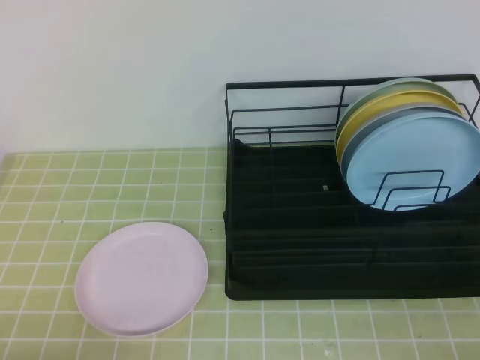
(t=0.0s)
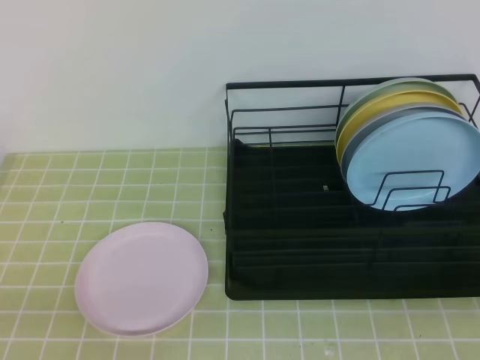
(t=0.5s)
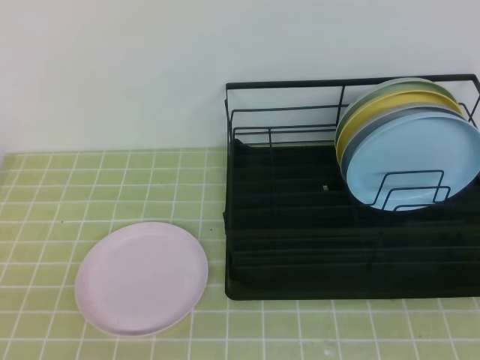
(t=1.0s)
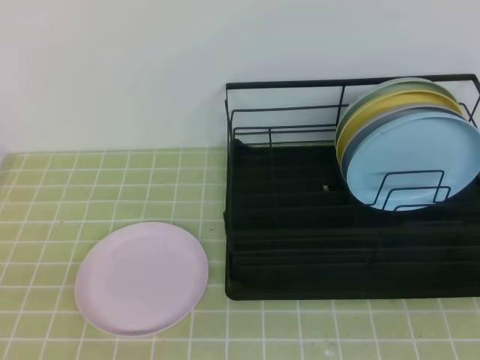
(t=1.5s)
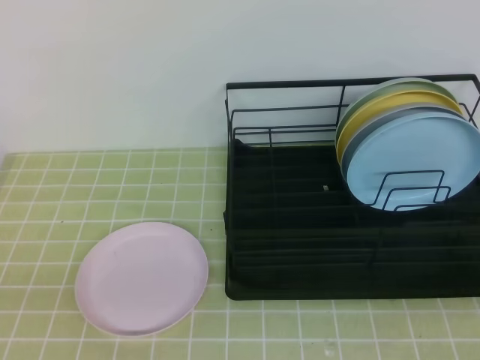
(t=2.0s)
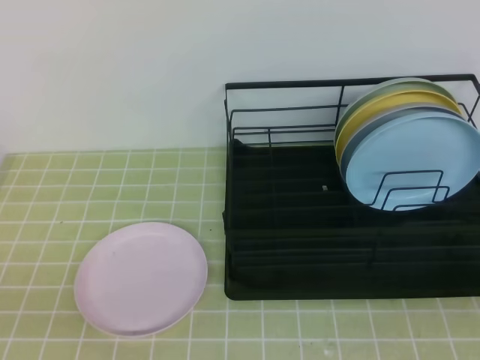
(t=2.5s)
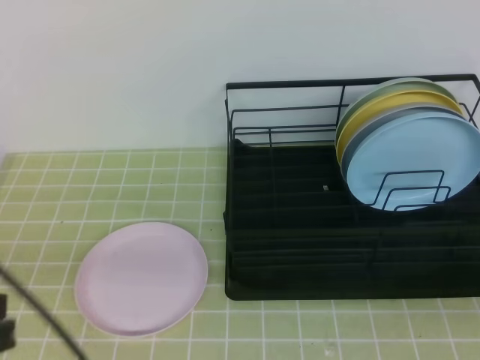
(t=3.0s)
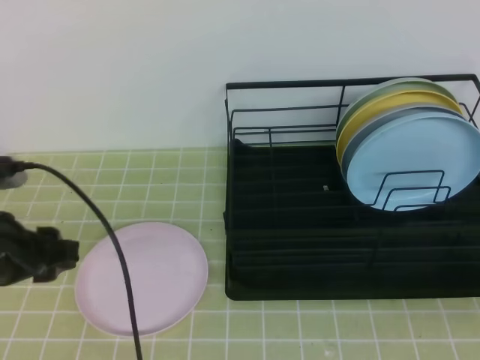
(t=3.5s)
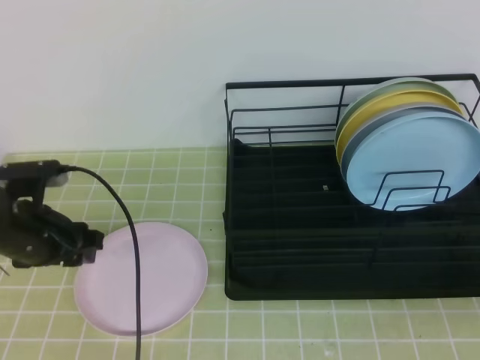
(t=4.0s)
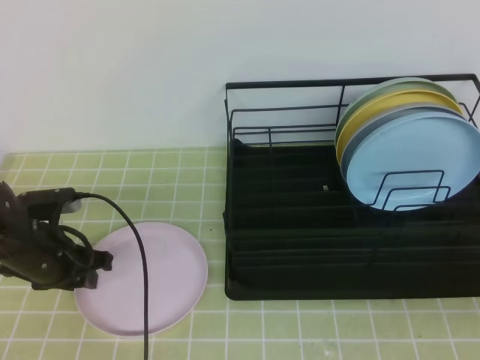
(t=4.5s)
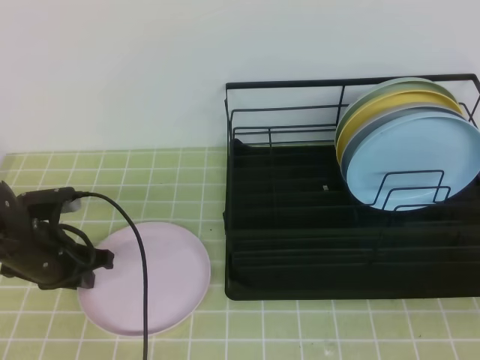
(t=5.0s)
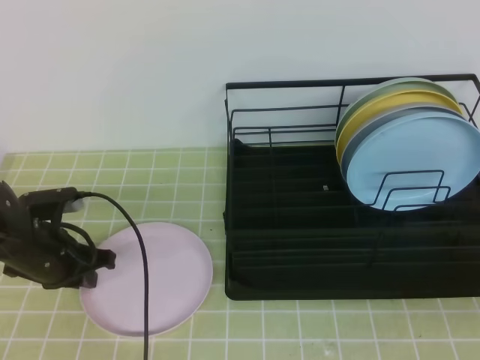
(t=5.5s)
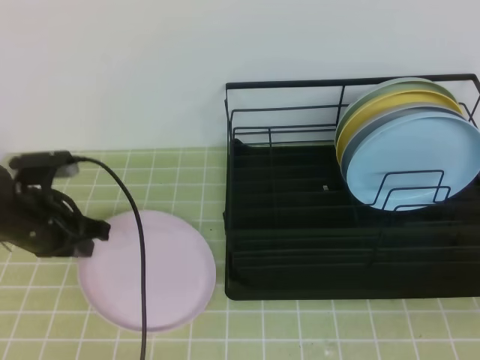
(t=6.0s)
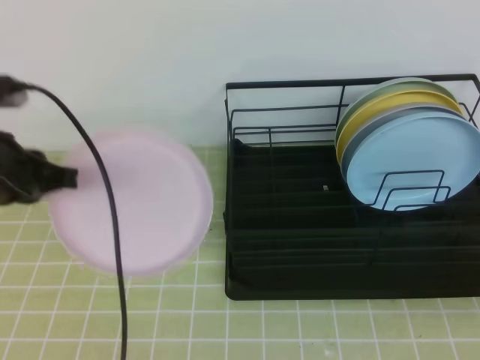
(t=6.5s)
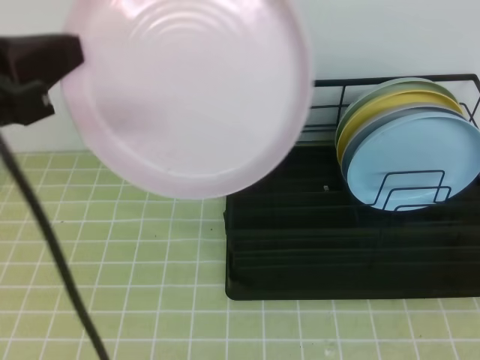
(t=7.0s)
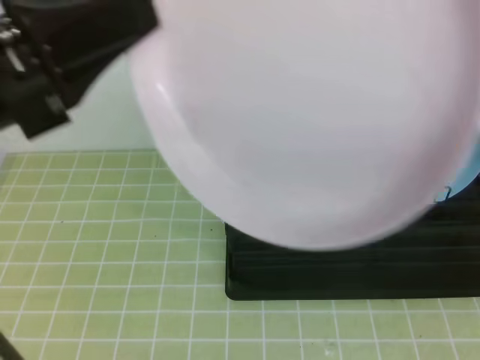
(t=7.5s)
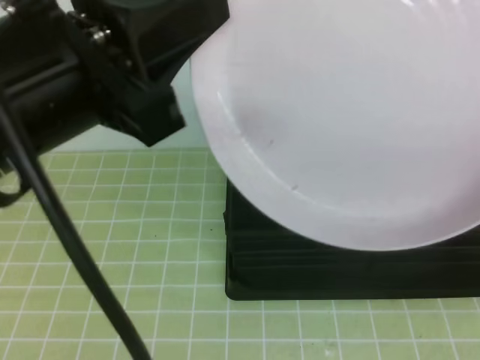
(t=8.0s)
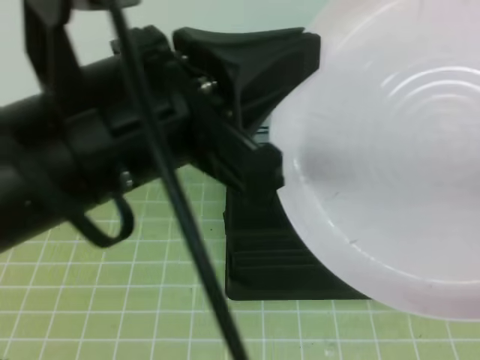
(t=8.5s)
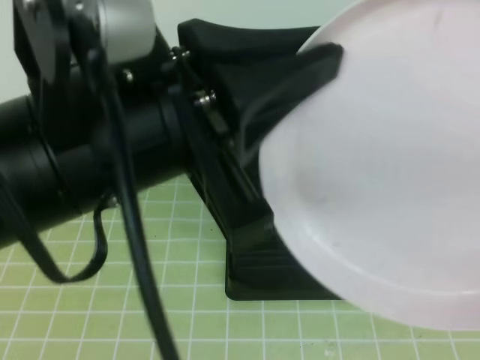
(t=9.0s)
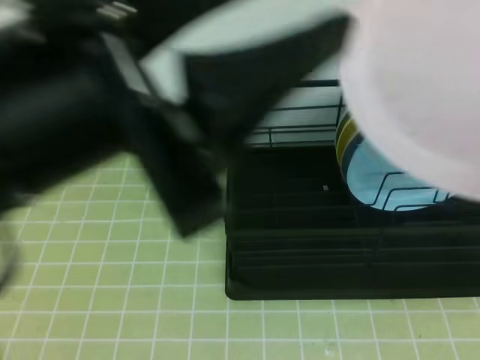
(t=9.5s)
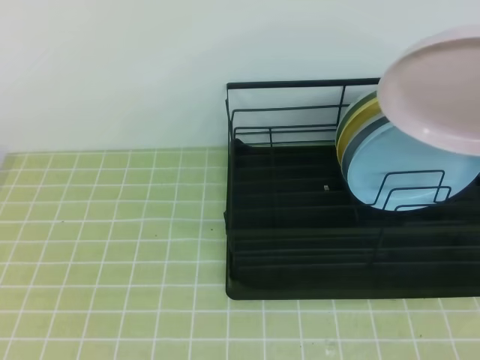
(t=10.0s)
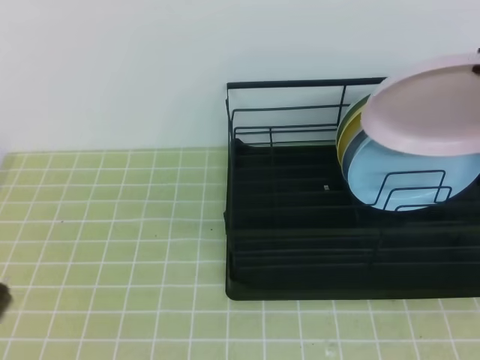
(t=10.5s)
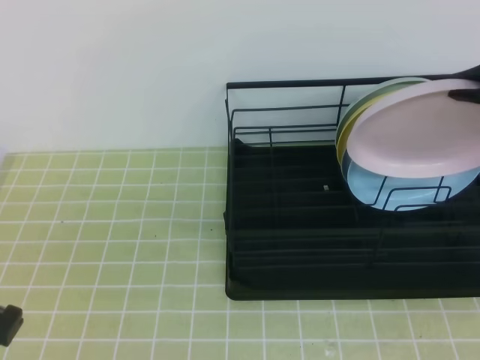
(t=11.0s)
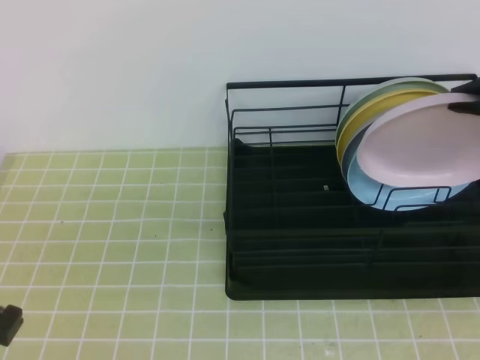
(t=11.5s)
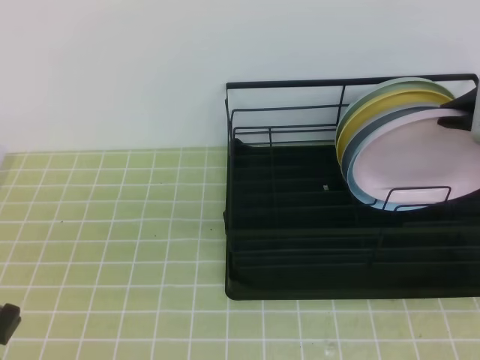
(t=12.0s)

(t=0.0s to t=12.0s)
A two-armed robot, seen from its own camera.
Step, t=0.0s - t=4.5s: Left grab the pink plate.
Step, t=5.0s - t=7.5s: Right receive the plate.
Step, t=8.0s - t=10.0s: Right place it at the front of the shelf.
t=2.0s - t=4.0s: The left gripper is displaced forward by approximately 30 cm, and opens up.
t=4.0s - t=6.0s: The left gripper closes up.
t=6.0s - t=8.0s: The left gripper moves upward, backward and to the right, some 30 cm. Meanwhile the right gripper heads upward and to the left, covering approximately 15 cm, and opens its fingers.
t=8.0s - t=10.0s: The right gripper moves forward, roughly 15 cm, and closes up. Meanwhile the left gripper heads to the left and backward, covering about 10 cm, and opens, then closes once more.
t=10.0s - t=12.0s: The right gripper goes about 15 cm forward and downward.

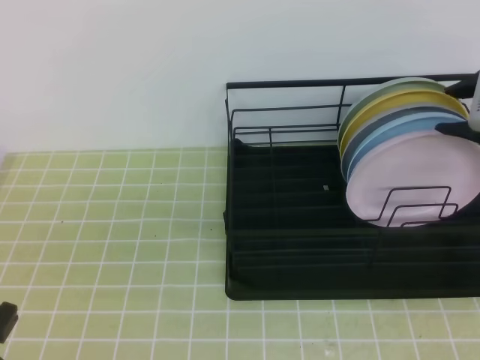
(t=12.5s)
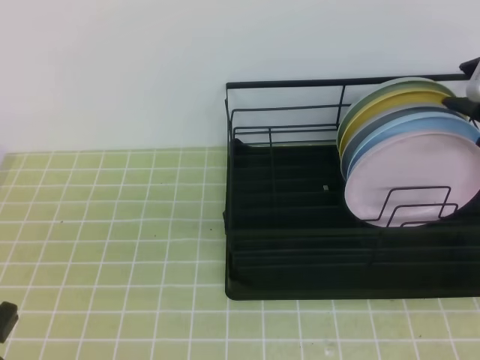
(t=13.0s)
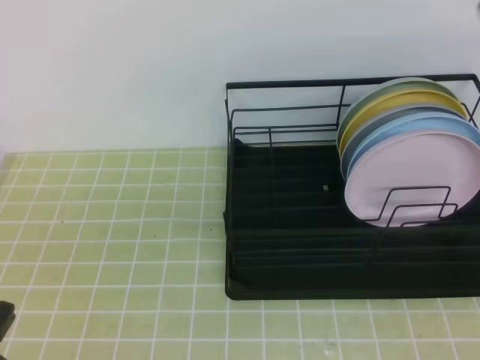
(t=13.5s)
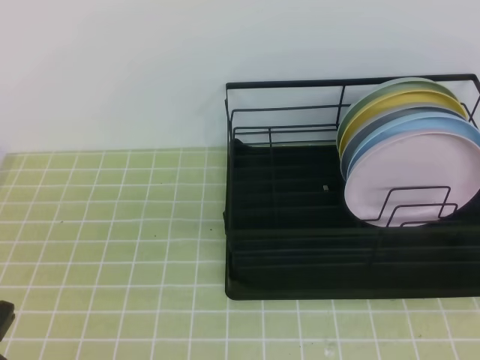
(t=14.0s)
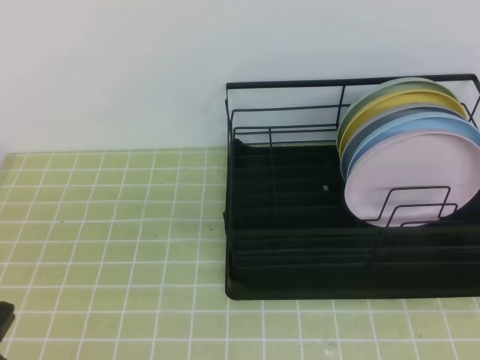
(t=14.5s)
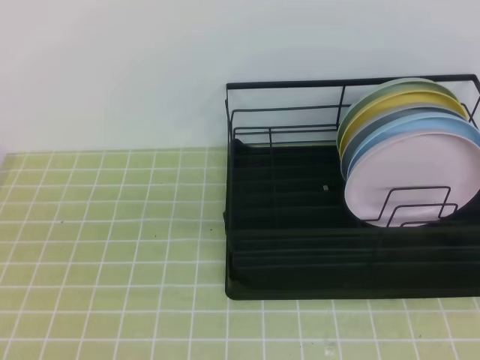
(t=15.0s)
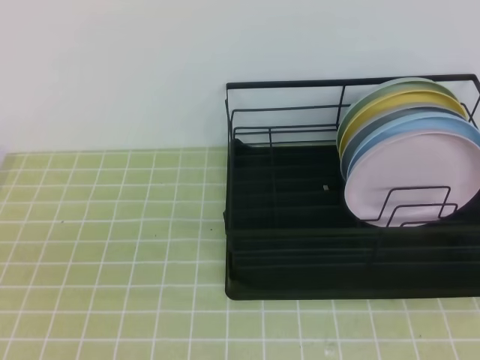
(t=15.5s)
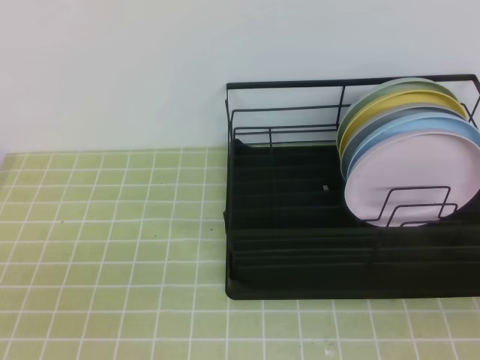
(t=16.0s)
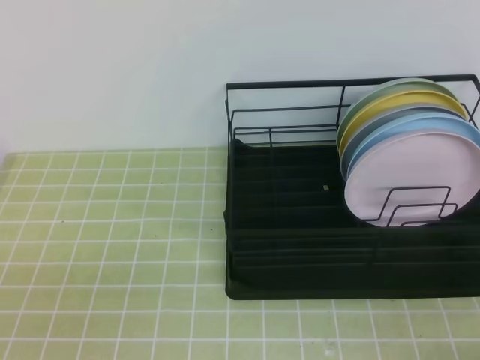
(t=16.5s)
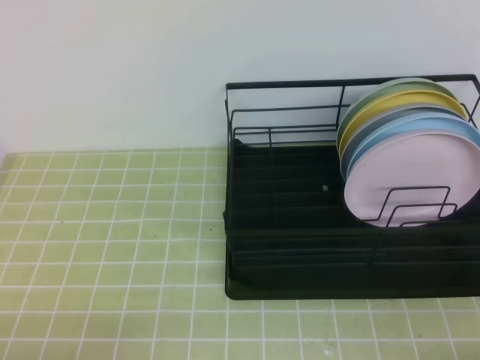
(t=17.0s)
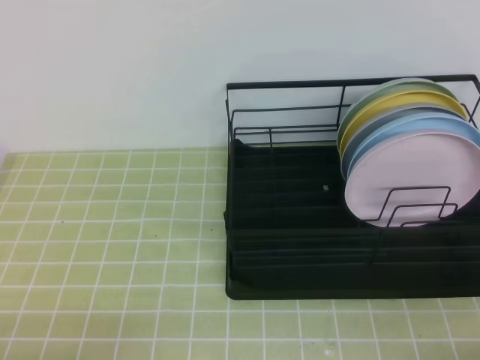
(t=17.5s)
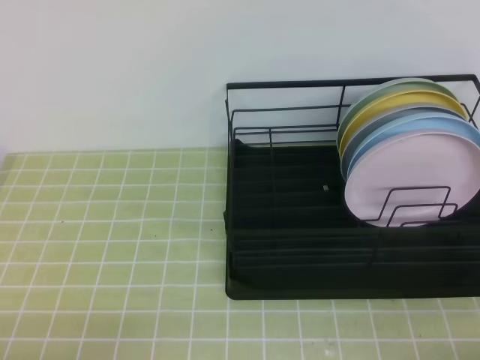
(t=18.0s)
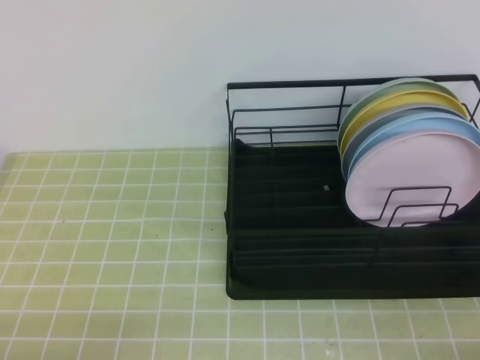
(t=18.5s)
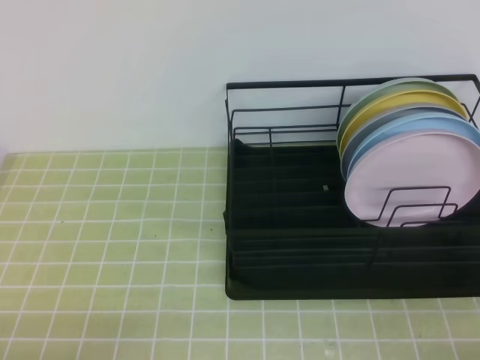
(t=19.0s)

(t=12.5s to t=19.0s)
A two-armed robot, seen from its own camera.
t=12.5s - t=14.5s: The right gripper goes roughly 30 cm backward and upward, and closes up.
t=14.5s - t=17.0s: The right gripper is displaced downward by some 30 cm.
